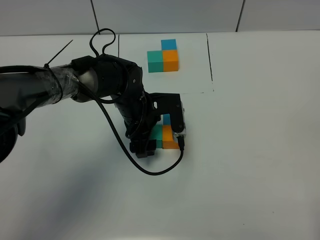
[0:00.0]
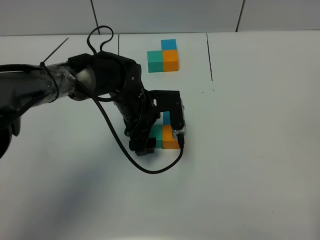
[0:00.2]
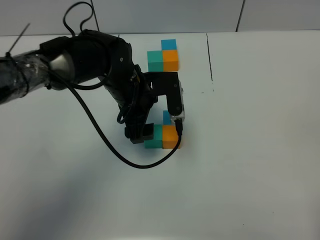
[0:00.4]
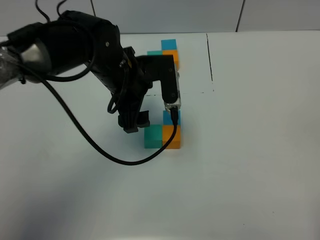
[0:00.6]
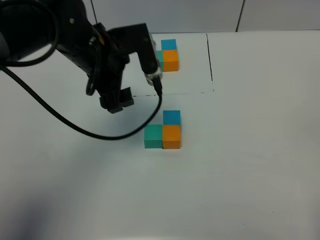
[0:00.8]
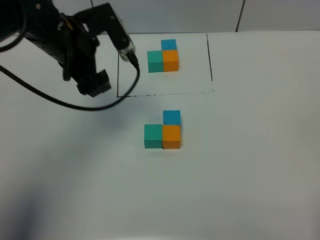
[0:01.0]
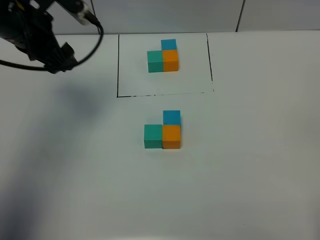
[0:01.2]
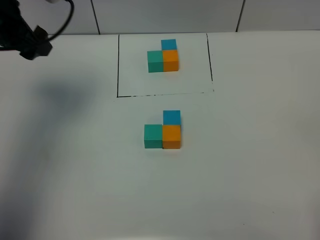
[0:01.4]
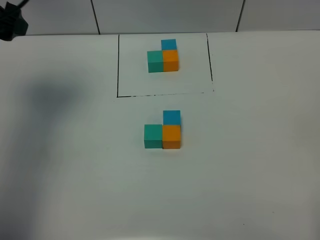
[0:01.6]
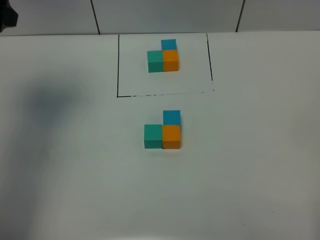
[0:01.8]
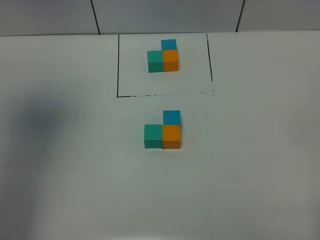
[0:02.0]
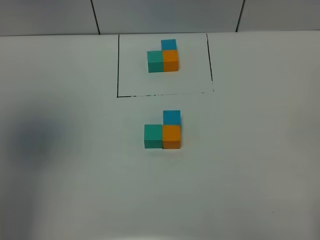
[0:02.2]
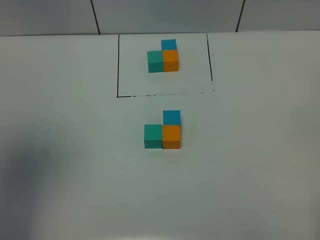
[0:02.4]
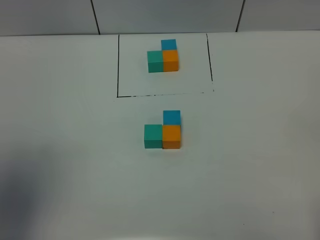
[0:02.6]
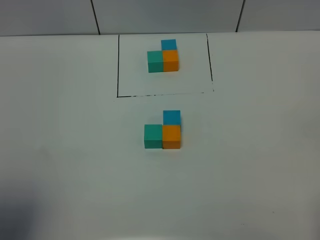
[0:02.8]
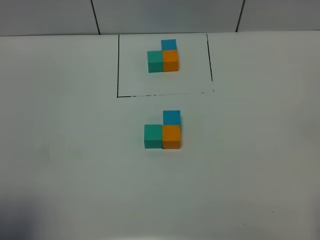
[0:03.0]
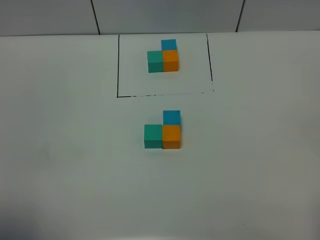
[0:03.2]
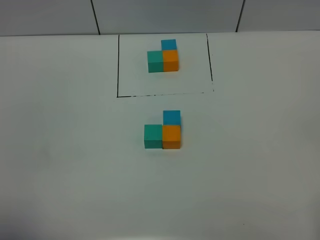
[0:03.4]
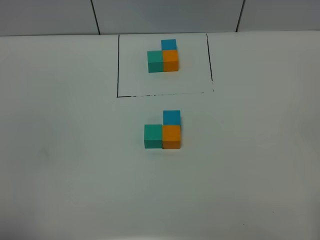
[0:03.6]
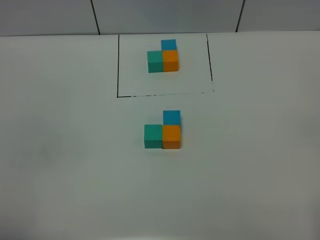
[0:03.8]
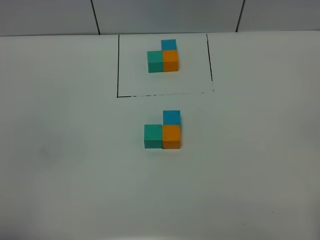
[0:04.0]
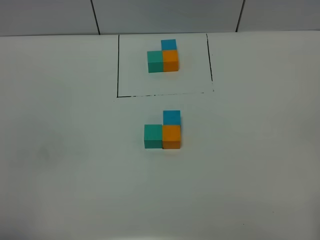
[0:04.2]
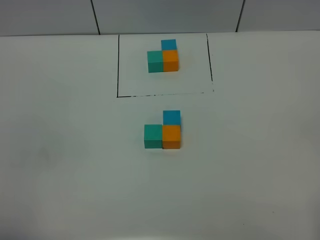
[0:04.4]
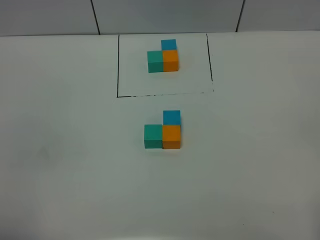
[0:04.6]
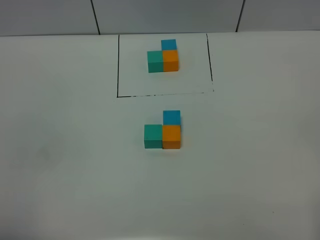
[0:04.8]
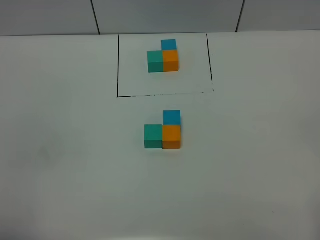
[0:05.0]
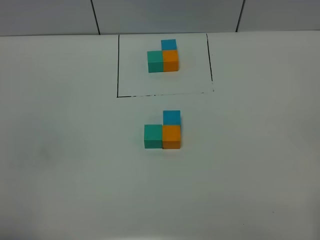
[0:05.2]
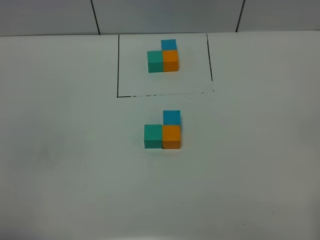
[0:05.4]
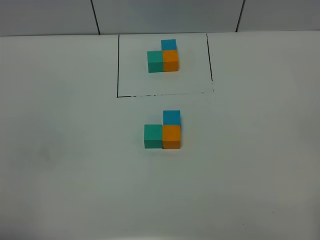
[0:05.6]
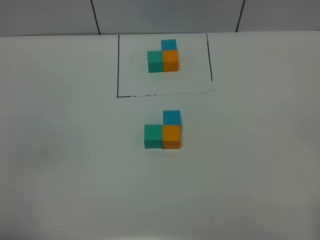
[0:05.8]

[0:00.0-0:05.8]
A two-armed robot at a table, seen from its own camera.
Task of the whole recording: According to the building block template in front, assemble the scattered blocks together.
0:00.0 to 0:01.4: The left gripper travels upward and to the left by roughly 30 cm.
0:01.4 to 0:02.8: The left gripper travels backward by about 30 cm.
0:02.8 to 0:04.4: The left gripper shifts roughly 15 cm downward and backward.
0:04.4 to 0:05.8: Both grippers stay put.
